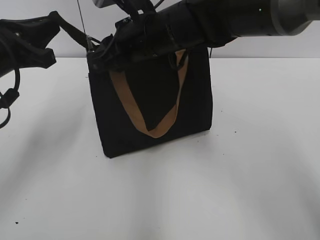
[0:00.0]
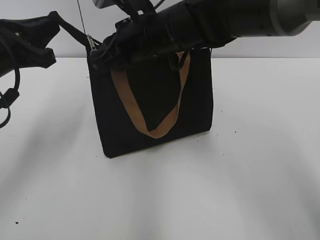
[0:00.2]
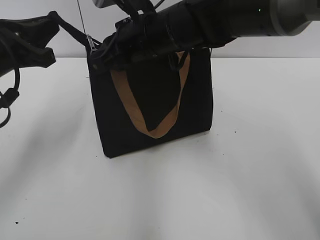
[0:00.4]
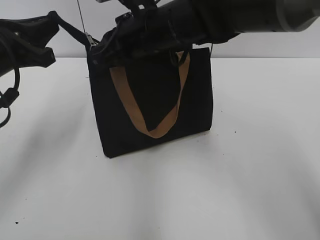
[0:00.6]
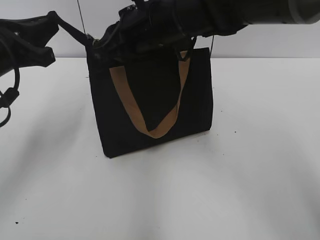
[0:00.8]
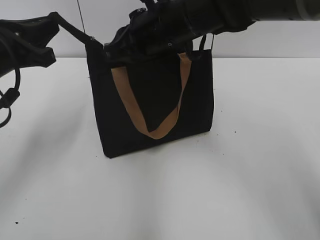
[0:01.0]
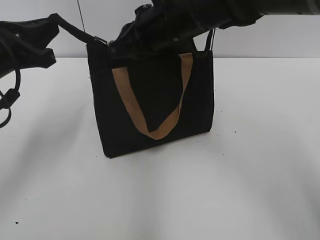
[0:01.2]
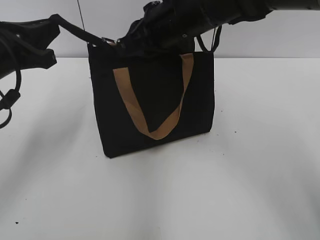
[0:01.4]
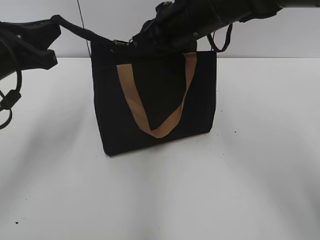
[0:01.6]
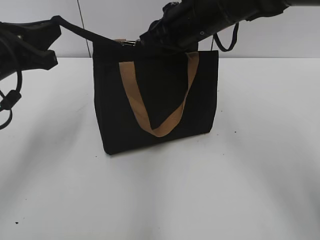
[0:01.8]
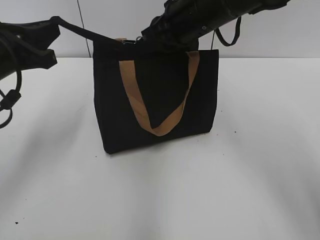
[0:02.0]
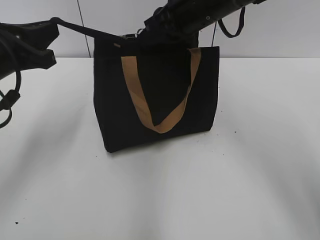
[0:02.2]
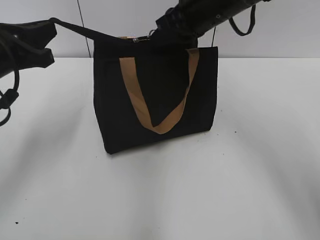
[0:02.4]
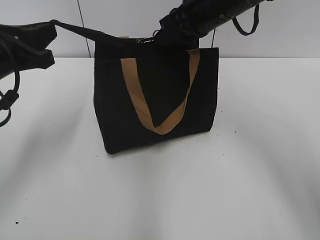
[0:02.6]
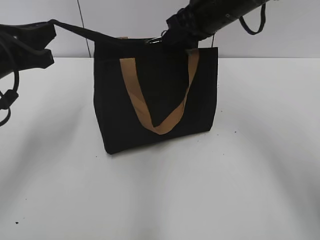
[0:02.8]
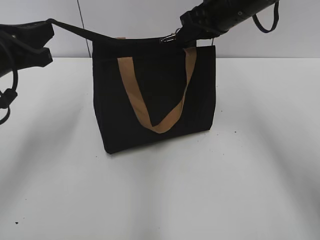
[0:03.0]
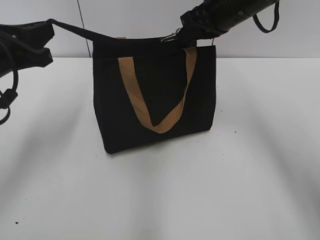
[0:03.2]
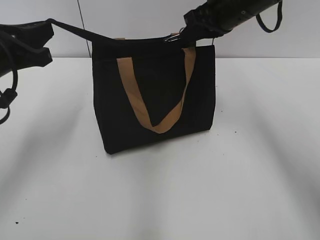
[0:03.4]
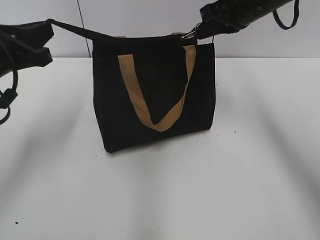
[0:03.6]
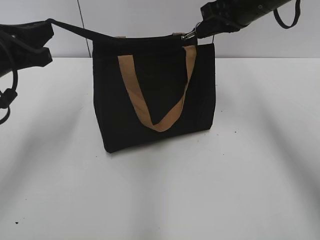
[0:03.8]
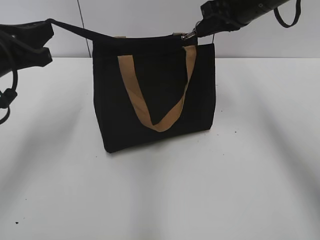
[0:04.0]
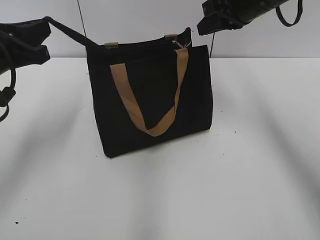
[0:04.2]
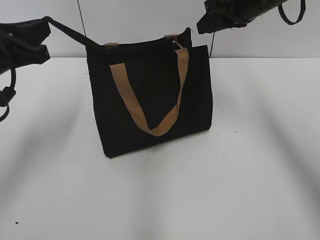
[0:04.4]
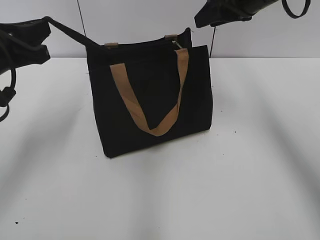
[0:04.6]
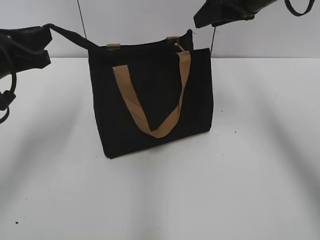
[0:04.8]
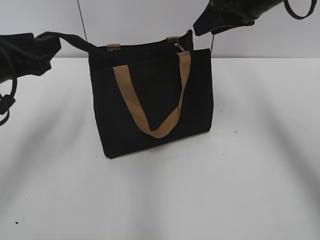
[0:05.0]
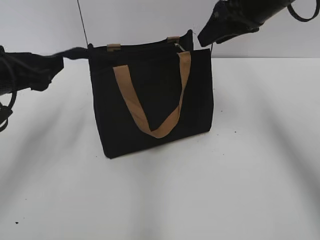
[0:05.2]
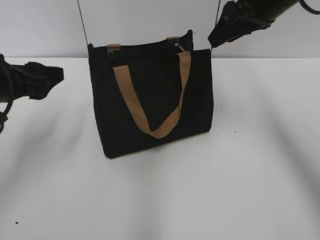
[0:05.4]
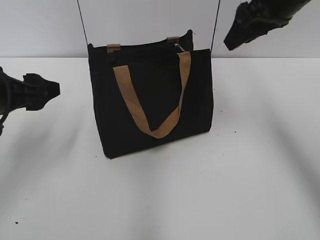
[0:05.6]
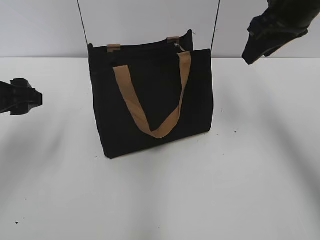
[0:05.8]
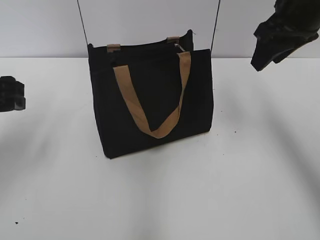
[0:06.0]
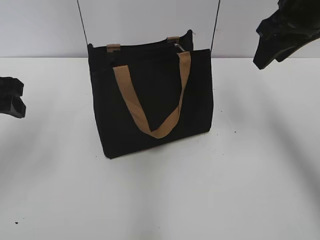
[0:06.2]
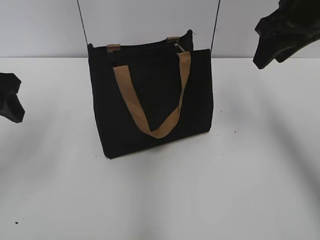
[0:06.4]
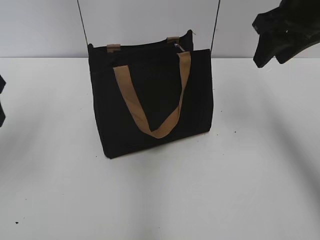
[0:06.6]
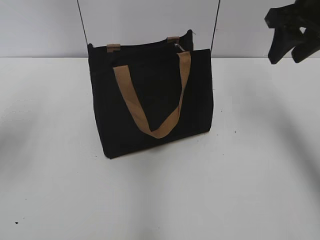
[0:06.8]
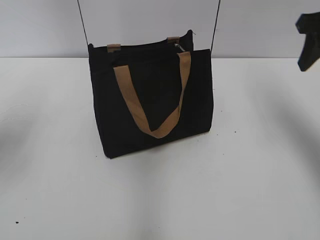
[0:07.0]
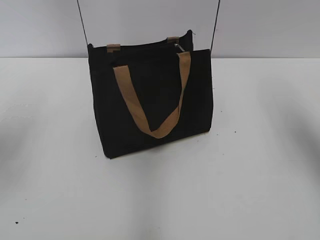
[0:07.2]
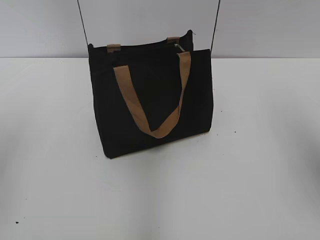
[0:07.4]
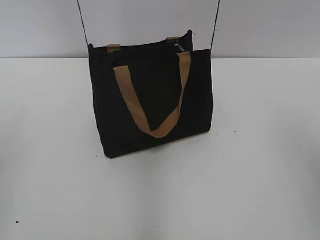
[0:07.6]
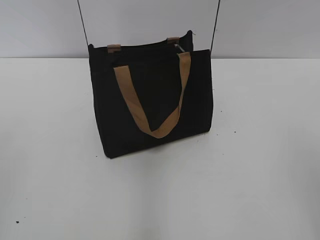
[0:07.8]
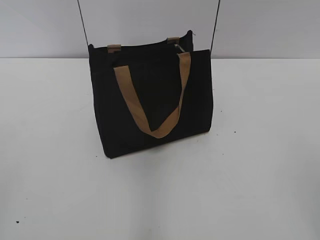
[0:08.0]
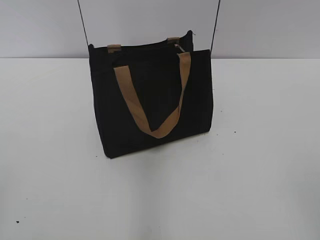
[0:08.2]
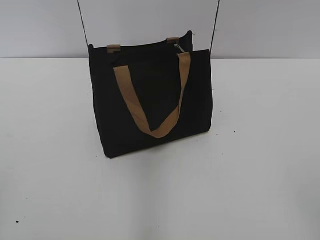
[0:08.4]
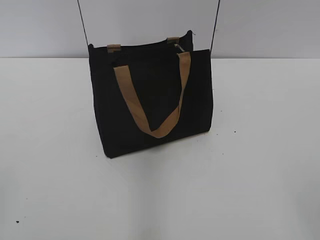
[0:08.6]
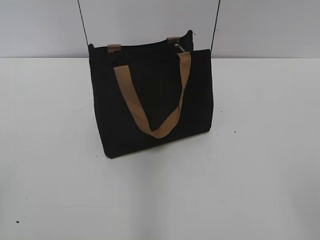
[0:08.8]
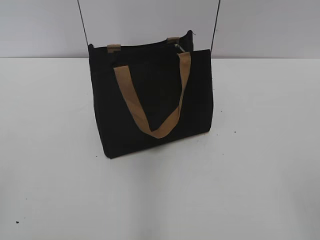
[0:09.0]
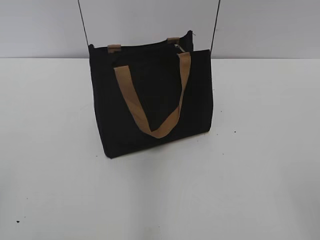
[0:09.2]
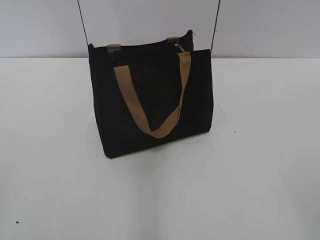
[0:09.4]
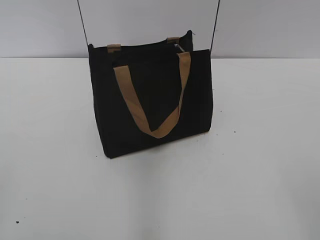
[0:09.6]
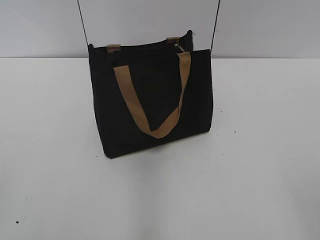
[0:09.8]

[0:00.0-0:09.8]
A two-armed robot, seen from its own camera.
Step, 0:00.0 to 0:04.2: Zip up the bag with your right hand.
Step, 0:04.4 to 0:05.2: Grab the zipper with your left hand.
0:00.0 to 0:01.4: The grippers stay close to where they were, moving slightly.
0:01.4 to 0:02.8: The right gripper travels to the right by about 5 cm.
0:02.8 to 0:04.2: The right gripper shifts some 5 cm to the right.
0:04.2 to 0:05.6: The right gripper ends up roughly 5 cm from where it was, and opens its fingers. Meanwhile the left gripper opens its fingers.
0:05.6 to 0:07.0: The left gripper heads upward, covering approximately 5 cm; the right gripper shifts some 10 cm to the right.
0:07.0 to 0:08.4: The grippers both shift backward by roughly 30 cm.
